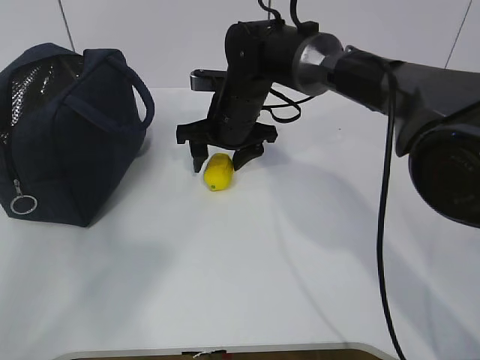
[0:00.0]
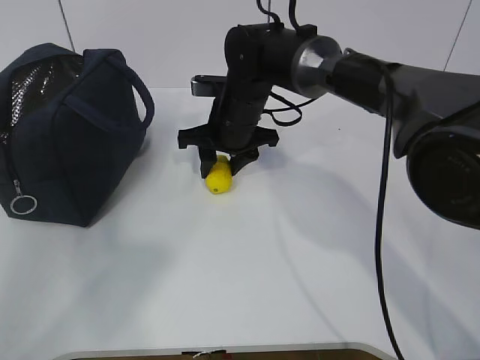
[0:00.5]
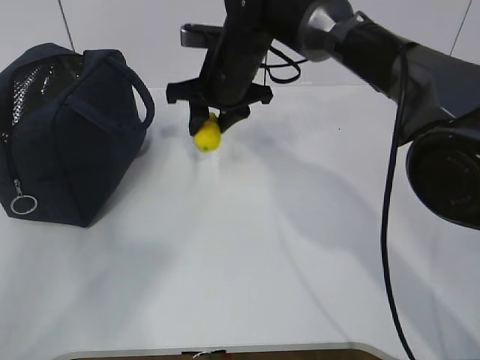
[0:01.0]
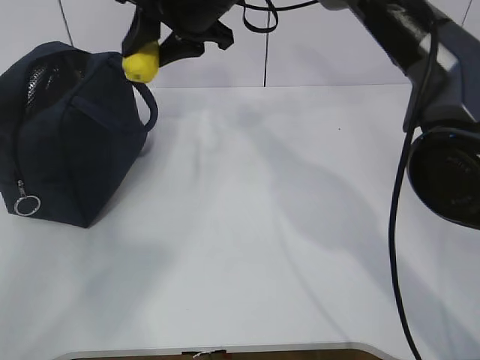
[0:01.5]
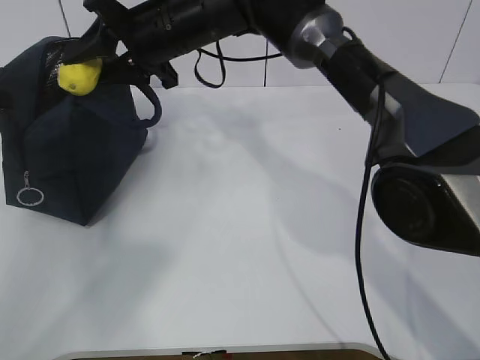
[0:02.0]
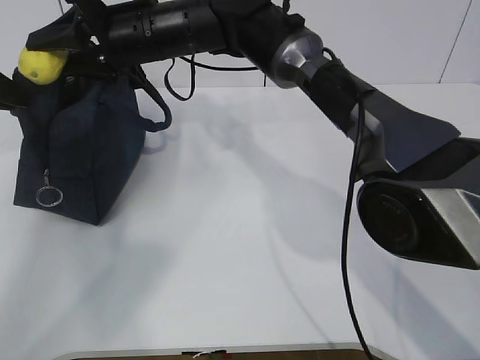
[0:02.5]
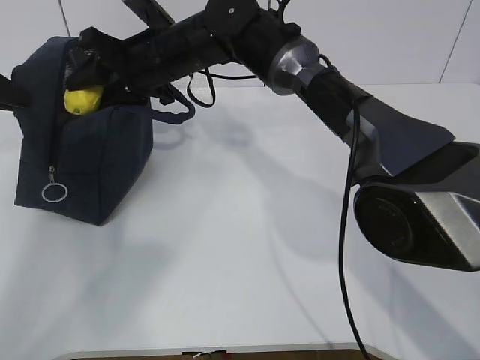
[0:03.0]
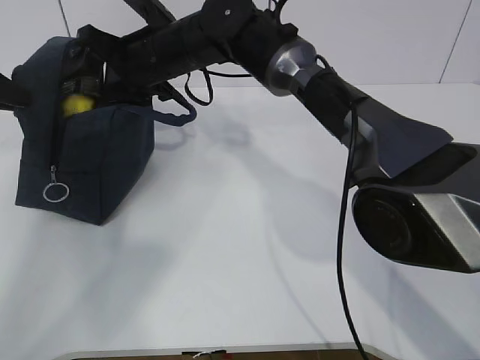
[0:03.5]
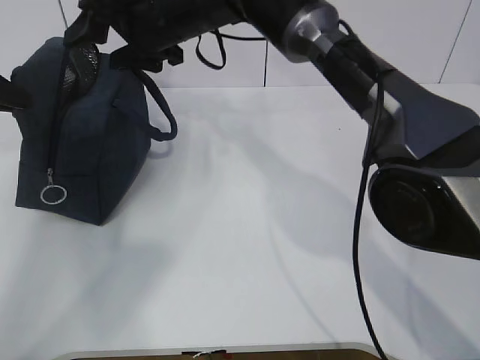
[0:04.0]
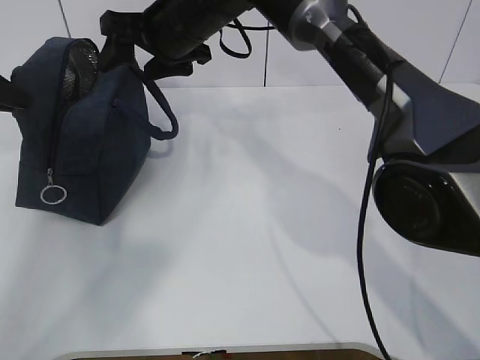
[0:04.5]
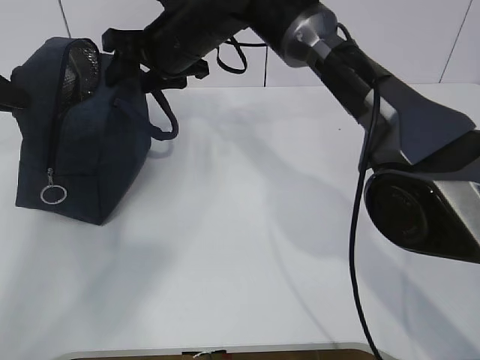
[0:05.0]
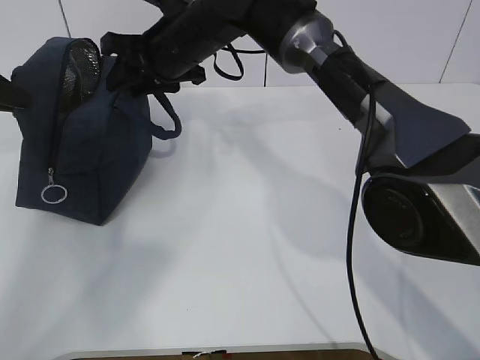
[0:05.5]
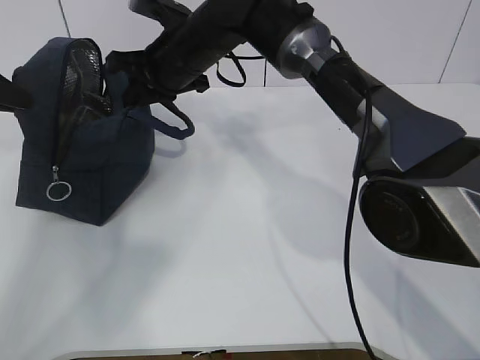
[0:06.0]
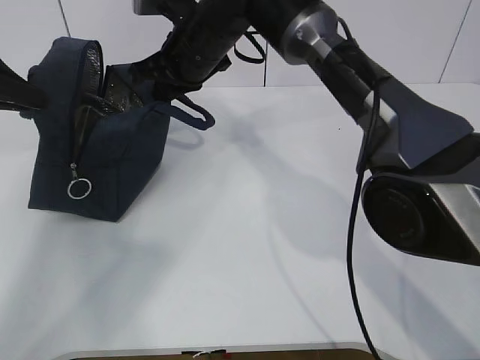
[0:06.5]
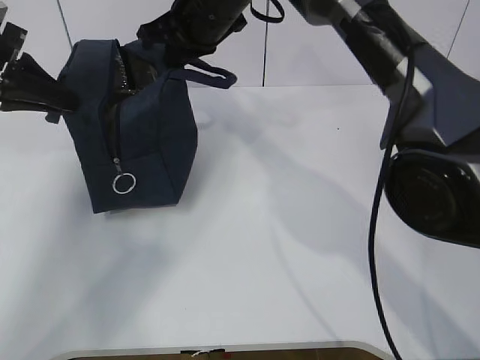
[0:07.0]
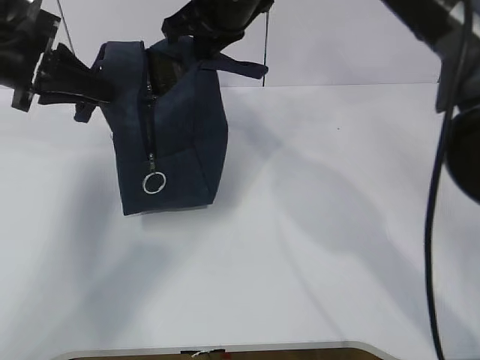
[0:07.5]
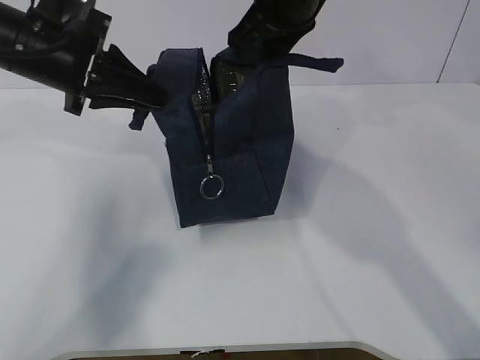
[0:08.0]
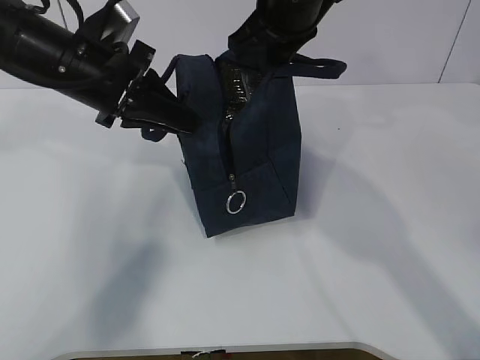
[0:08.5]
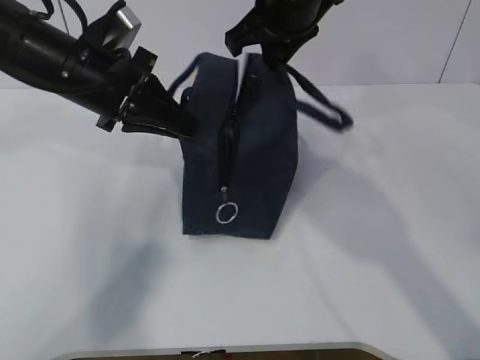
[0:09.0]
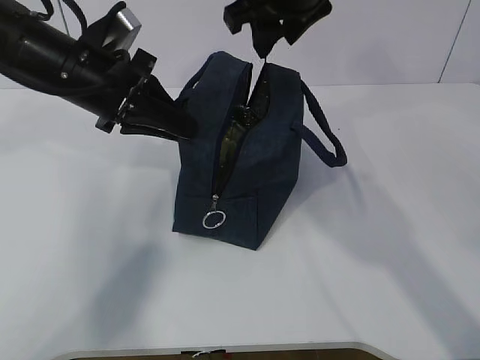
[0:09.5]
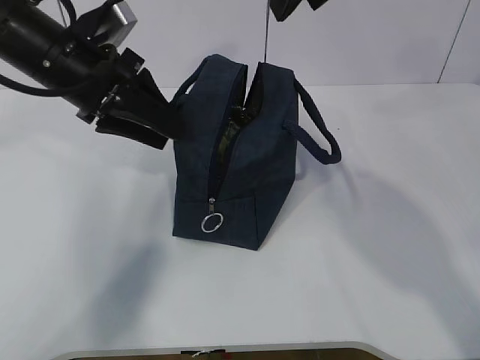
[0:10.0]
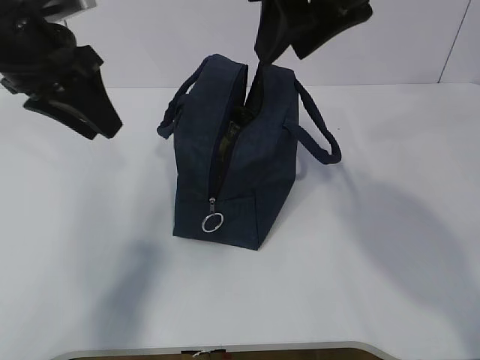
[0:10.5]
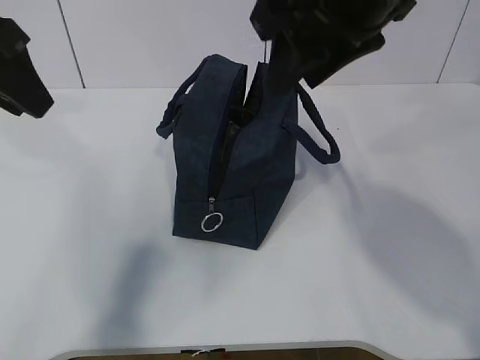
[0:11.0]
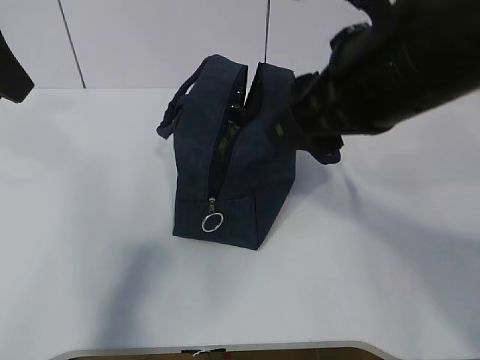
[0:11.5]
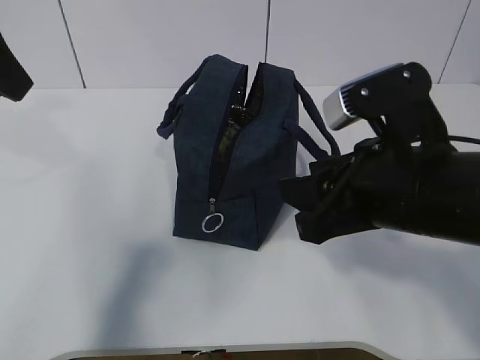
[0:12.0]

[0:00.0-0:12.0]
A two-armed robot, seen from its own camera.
Step, 0.0 to 3.0 s: Move the lunch bag to the right.
0.0 to 2.0 s: The right gripper moves upward and to the left, about 10 cm, and closes up.
2.0 to 4.0 s: The right gripper opens.
4.0 to 6.0 s: The right gripper closes.
6.0 to 8.0 s: The left gripper is displaced to the right by about 15 cm. The right gripper shifts some 15 cm to the right, upward and backward.
8.0 to 10.0 s: The left gripper opens its fingers. Meanwhile the right gripper shifts about 10 cm upward and backward, and opens.
10.0 to 12.0 s: The left gripper heads upward, backward and to the left, covering some 15 cm. Meanwhile the right gripper moves downward and backward, approximately 20 cm.

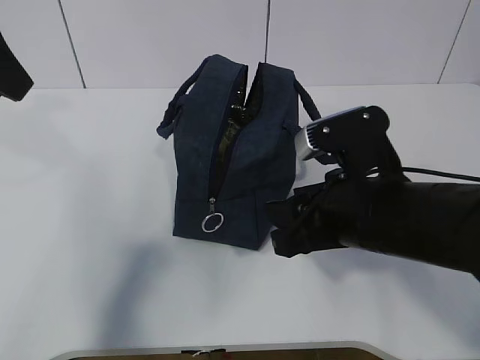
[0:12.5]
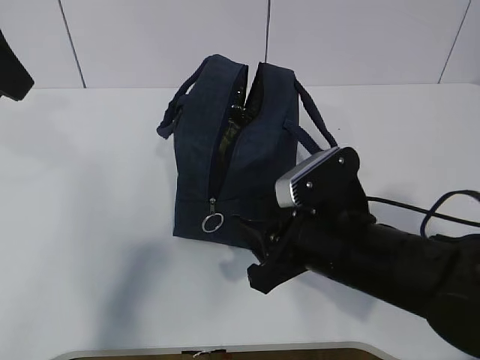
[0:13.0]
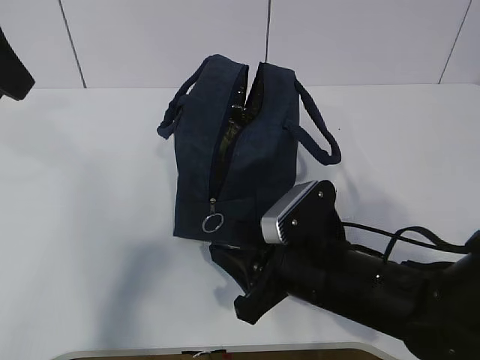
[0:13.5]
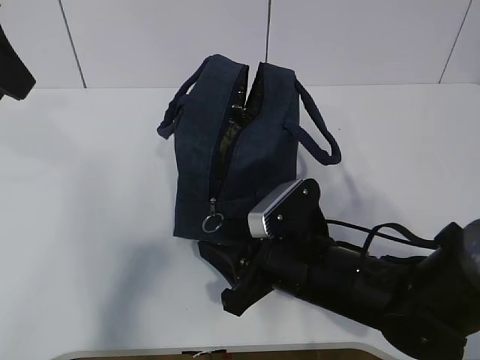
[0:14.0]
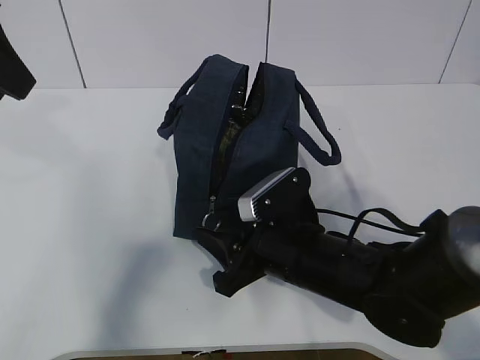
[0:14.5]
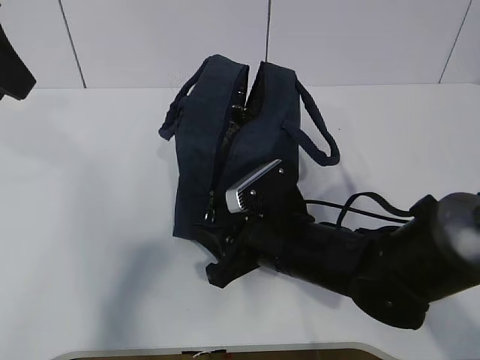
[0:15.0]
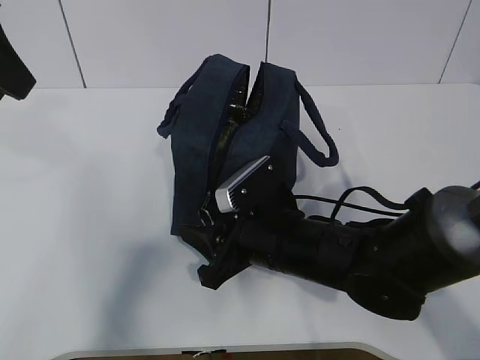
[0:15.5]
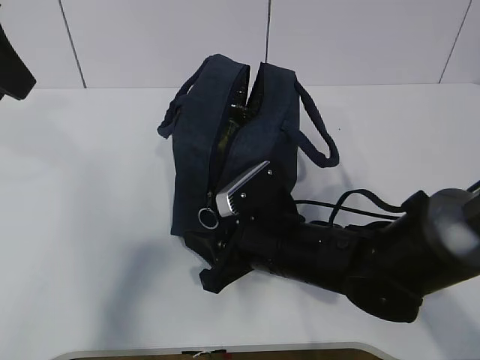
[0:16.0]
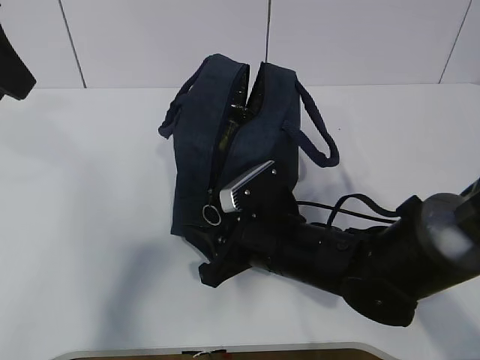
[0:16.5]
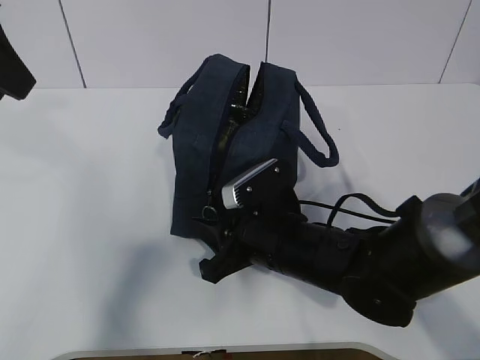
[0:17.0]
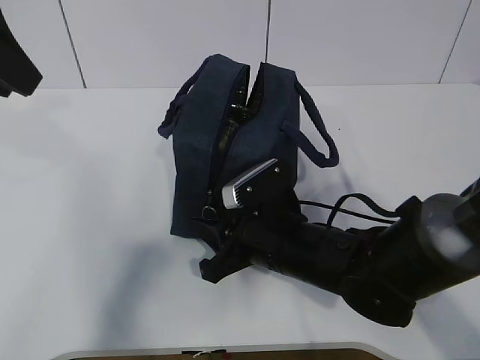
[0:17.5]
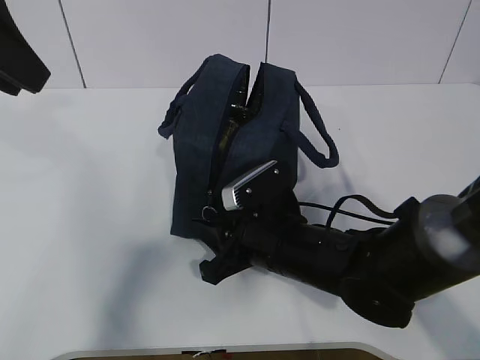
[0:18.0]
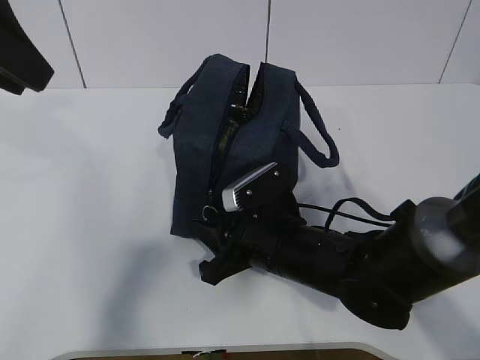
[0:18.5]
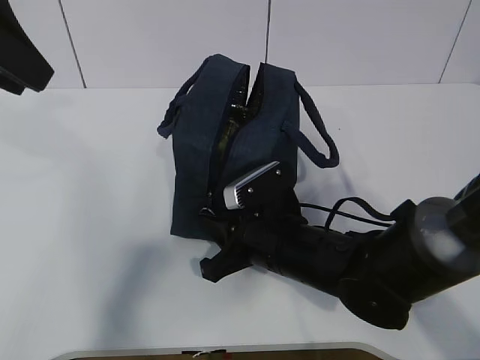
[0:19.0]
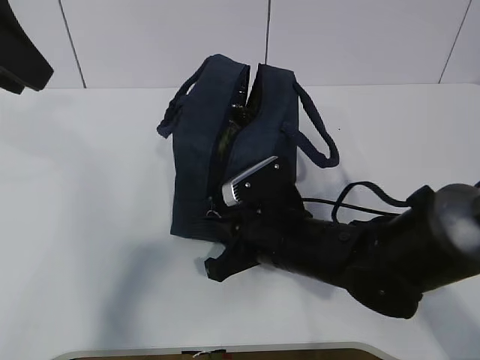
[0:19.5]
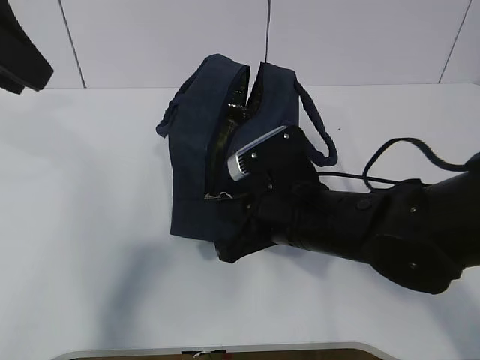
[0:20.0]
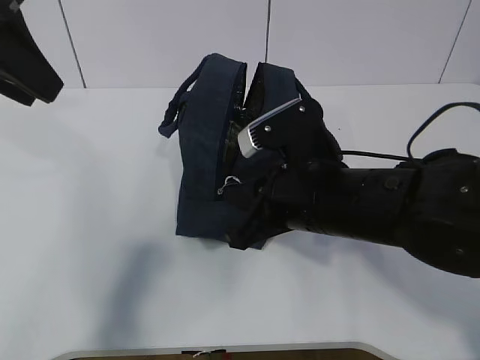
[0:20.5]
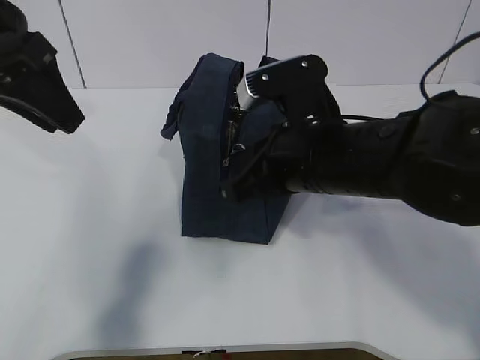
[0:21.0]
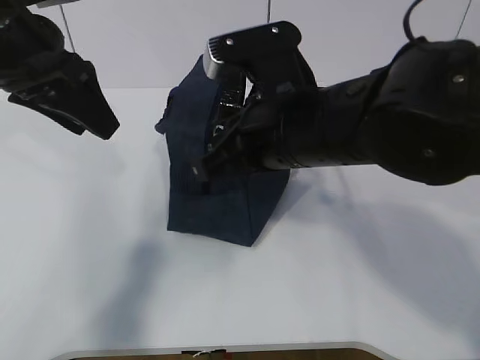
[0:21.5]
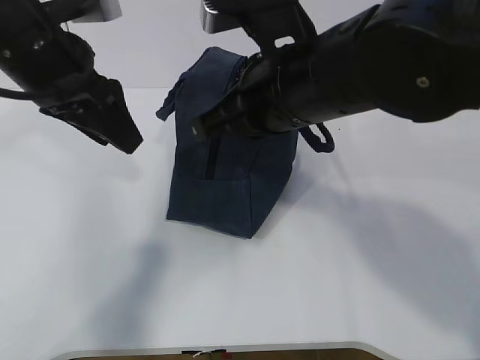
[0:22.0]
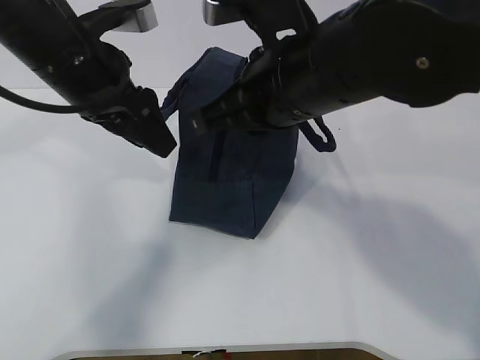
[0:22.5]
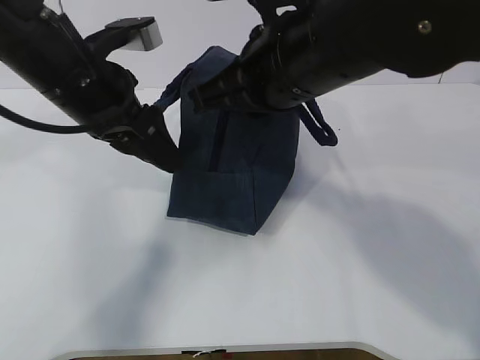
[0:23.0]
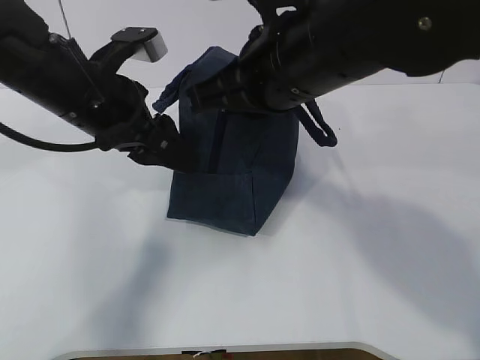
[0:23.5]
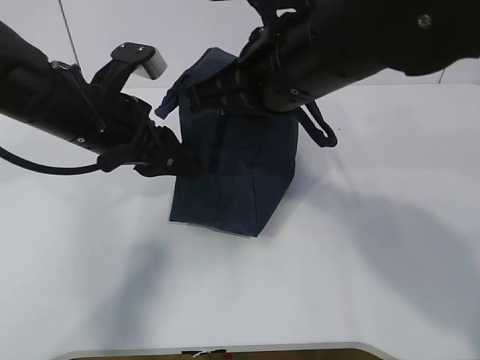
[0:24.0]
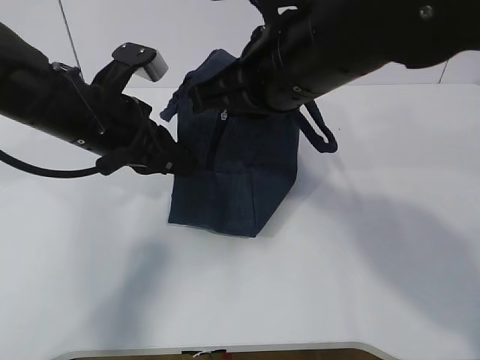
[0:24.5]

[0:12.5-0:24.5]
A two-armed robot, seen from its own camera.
Step, 12.5 to 22.0 s: Grab the lunch bag with your left hand.
12.5 to 14.5 s: The right gripper goes roughly 10 cm downward.
14.5 to 18.5 s: The grippers make only small movements.
18.5 to 20.5 s: The right gripper goes roughly 10 cm upward, and closes.
20.5 to 22.5 s: The left gripper heads downward, to the right and forward, covering some 15 cm, and opens. Meanwhile the right gripper moves upward, roughly 10 cm.
22.5 to 24.5 s: The left gripper is displaced downward by some 5 cm, and closes its fingers.

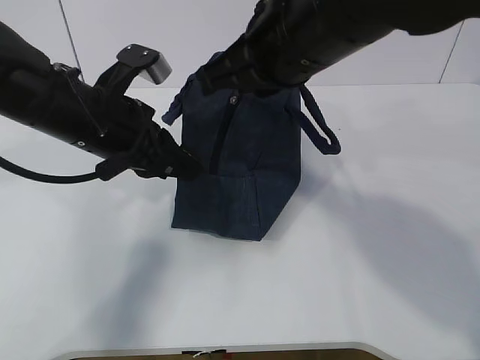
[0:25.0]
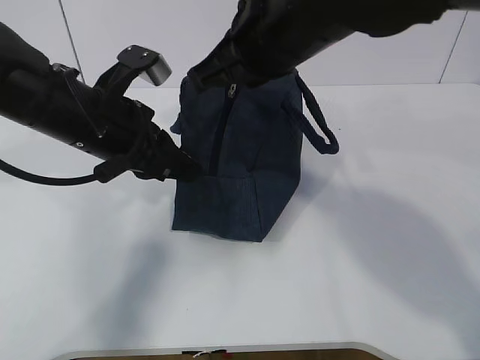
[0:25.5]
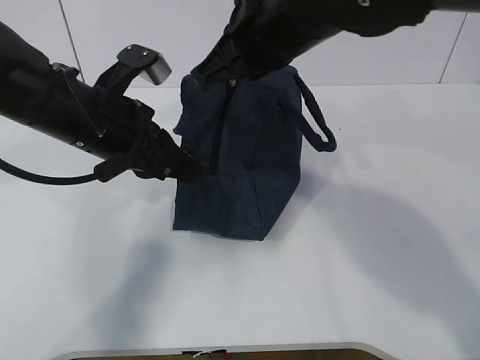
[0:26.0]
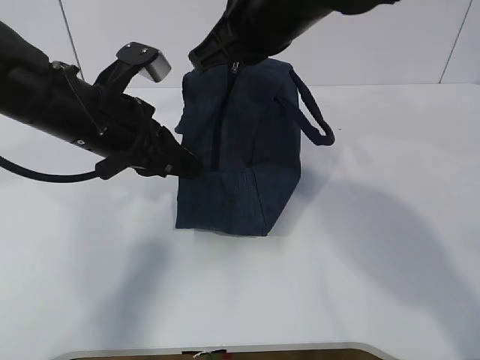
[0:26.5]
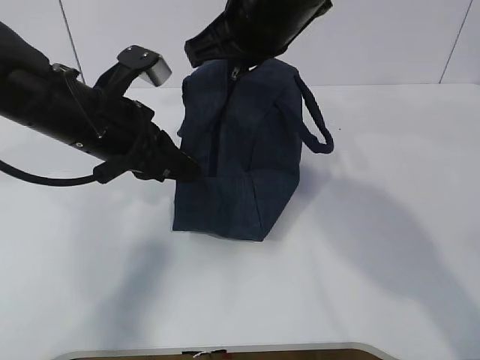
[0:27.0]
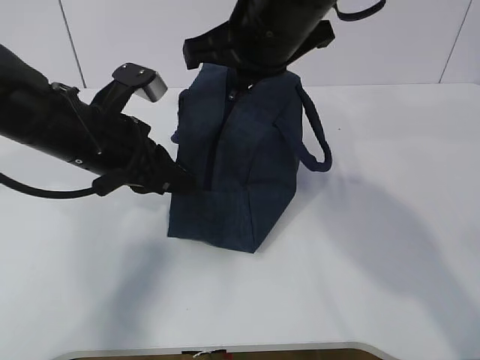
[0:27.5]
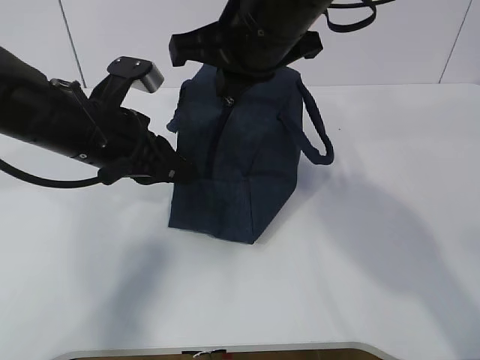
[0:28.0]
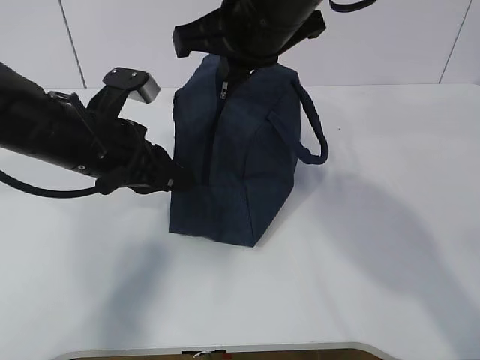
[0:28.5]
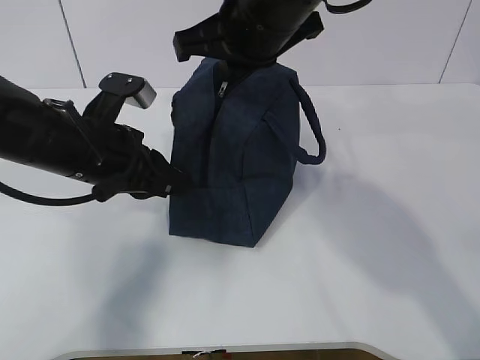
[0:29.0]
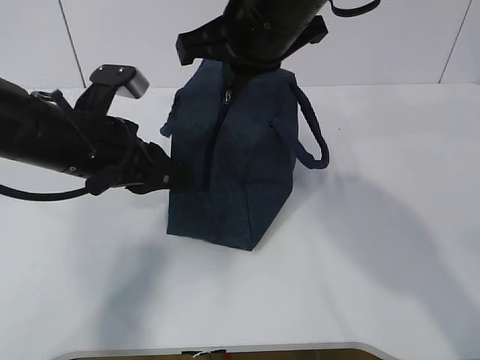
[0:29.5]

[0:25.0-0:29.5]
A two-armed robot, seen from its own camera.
25.0 to 27.0 s: The right gripper is displaced forward by roughly 5 cm.
